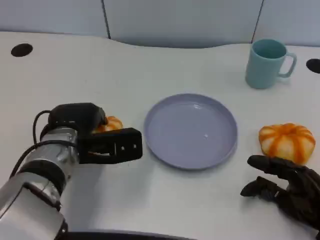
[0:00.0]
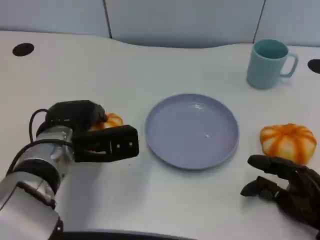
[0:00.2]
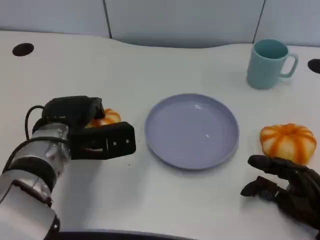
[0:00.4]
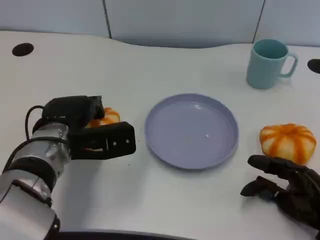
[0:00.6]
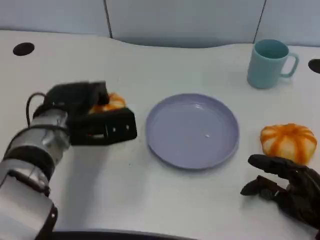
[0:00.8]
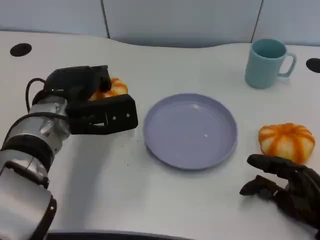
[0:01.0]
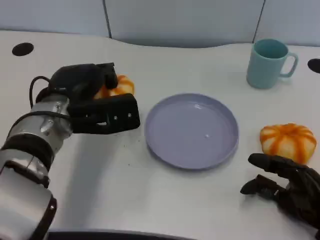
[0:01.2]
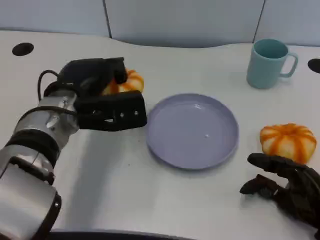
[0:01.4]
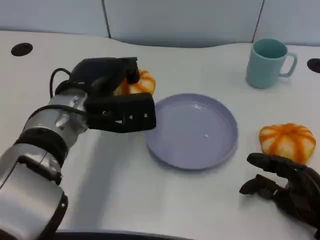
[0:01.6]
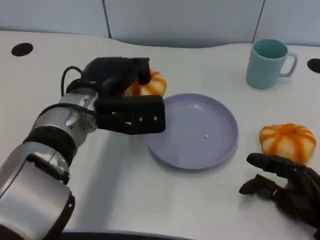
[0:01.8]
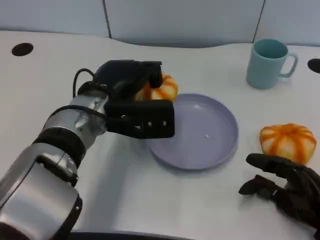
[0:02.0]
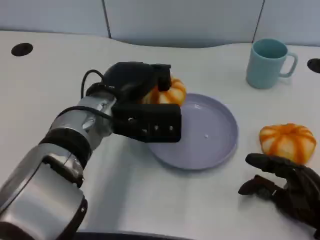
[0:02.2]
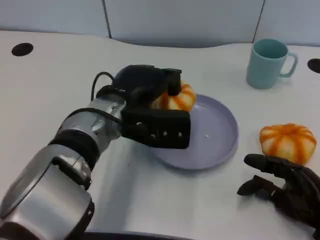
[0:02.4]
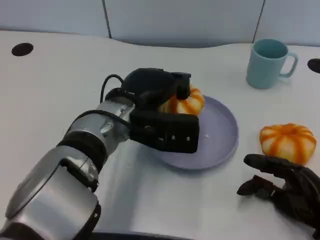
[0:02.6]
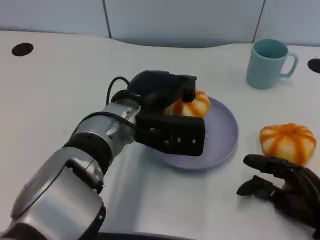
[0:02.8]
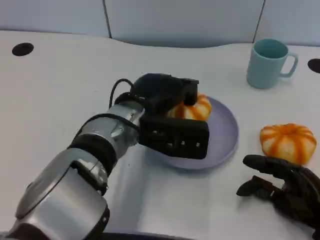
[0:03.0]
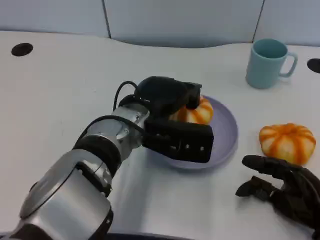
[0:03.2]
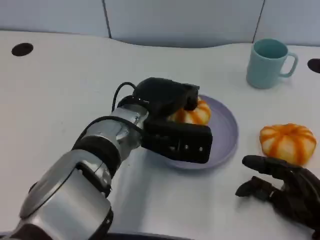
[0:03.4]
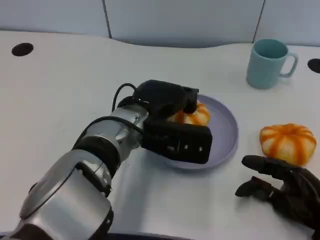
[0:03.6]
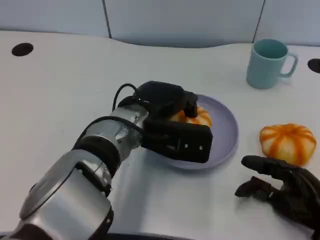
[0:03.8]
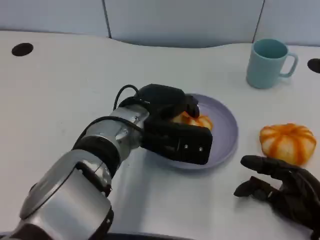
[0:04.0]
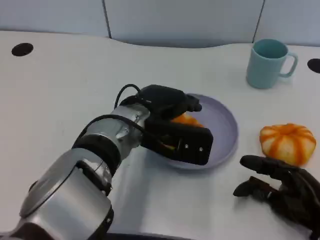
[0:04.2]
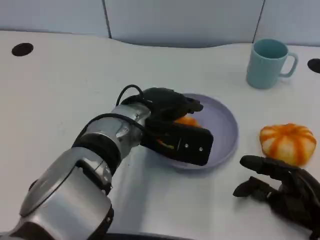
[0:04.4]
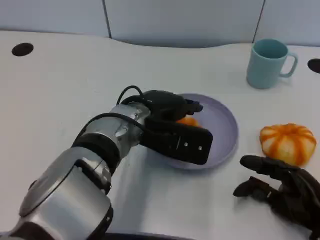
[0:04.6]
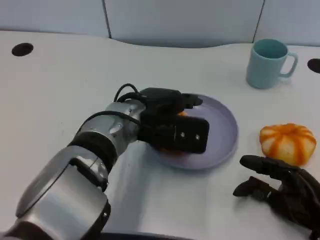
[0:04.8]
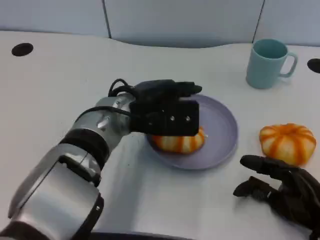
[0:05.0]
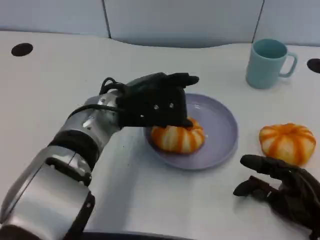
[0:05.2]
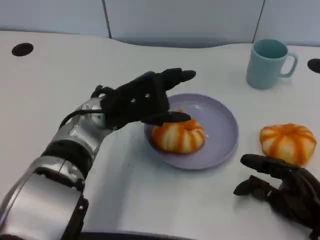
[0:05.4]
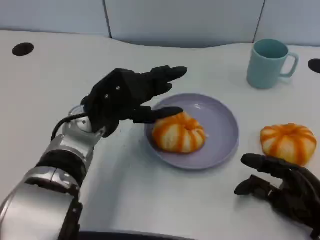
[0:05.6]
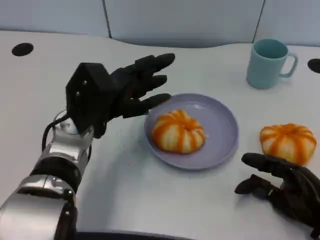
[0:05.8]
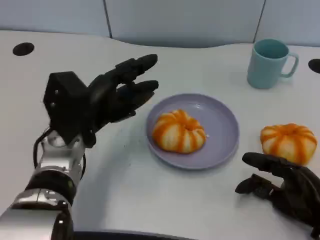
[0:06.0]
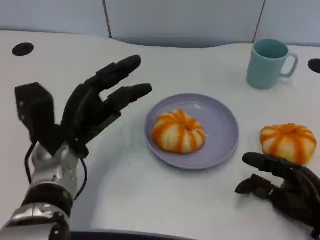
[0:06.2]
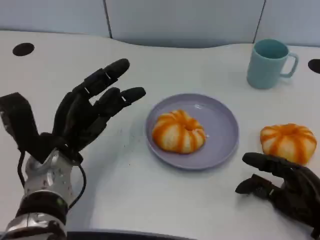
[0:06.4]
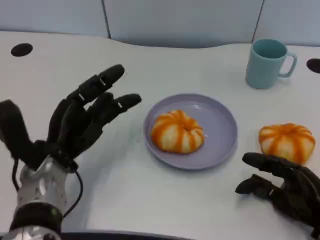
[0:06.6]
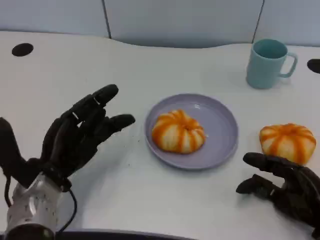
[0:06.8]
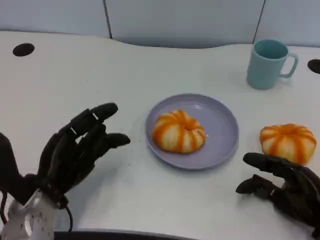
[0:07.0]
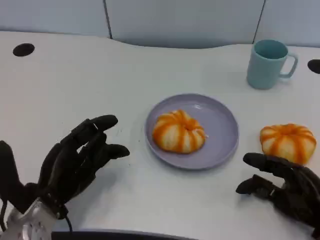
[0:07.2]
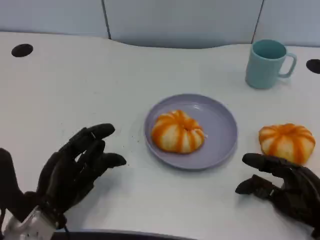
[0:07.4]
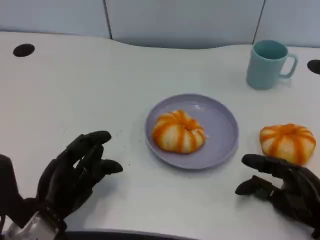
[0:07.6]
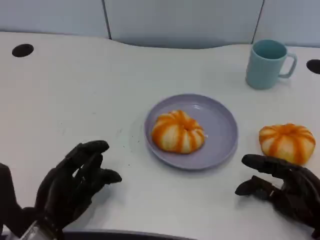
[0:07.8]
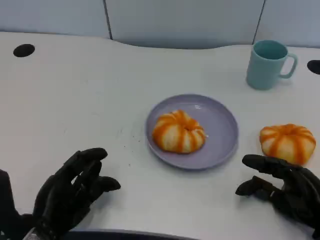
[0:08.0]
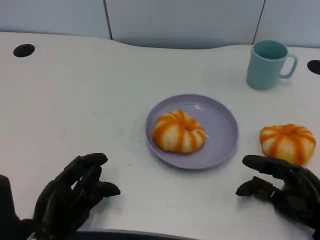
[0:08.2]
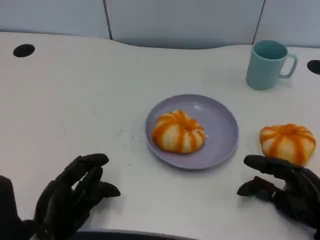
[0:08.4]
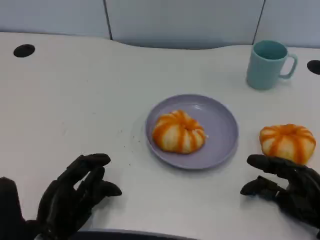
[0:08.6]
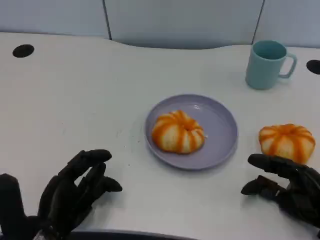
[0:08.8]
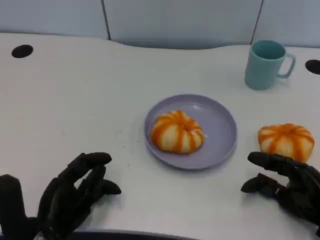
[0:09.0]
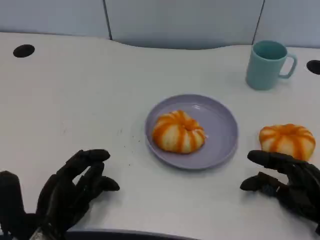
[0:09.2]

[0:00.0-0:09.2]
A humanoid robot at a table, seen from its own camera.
Task of the whole recording: Grasp the bread from the table and place it into the plate.
0:00.0 to 0:01.6: The left hand travels upward by some 5 cm.
0:01.6 to 0:03.0: The left hand moves to the right, approximately 10 cm.
0:03.0 to 0:04.6: The hands stay close to where they were, moving slightly.
0:04.6 to 0:06.2: The left hand moves to the left, about 10 cm.
0:06.2 to 0:07.6: The left hand shifts approximately 10 cm backward.
0:07.6 to 0:09.2: The hands move only a little.

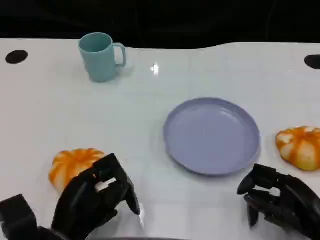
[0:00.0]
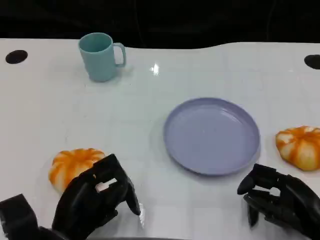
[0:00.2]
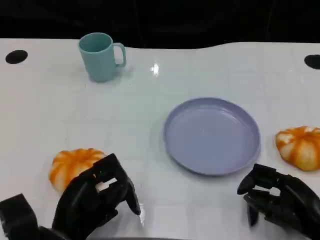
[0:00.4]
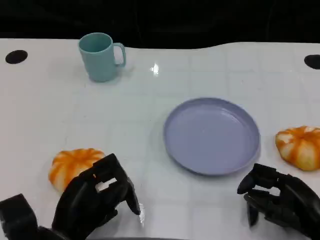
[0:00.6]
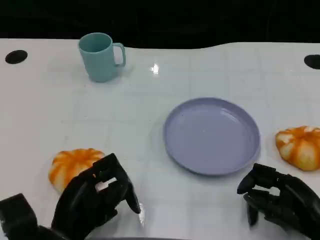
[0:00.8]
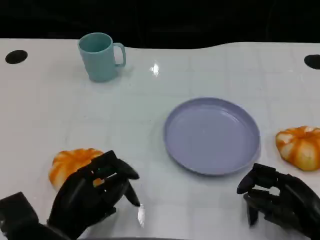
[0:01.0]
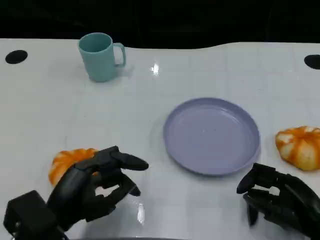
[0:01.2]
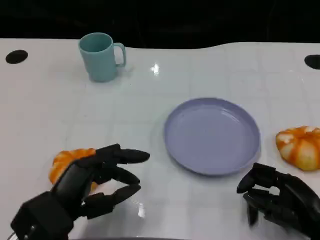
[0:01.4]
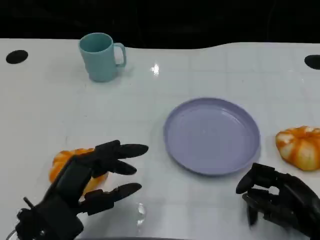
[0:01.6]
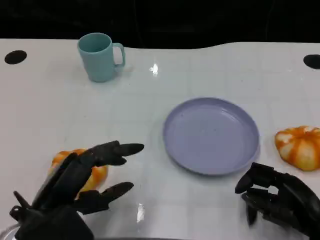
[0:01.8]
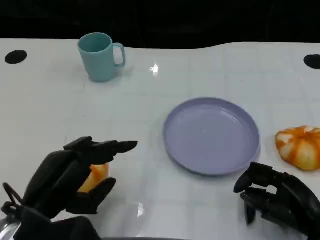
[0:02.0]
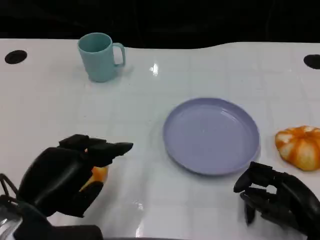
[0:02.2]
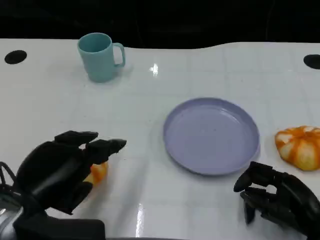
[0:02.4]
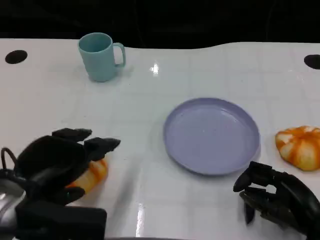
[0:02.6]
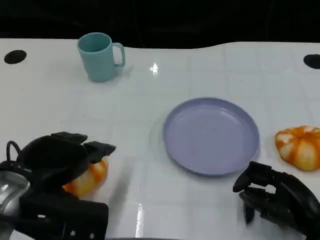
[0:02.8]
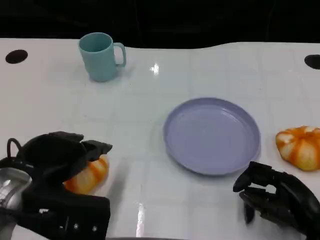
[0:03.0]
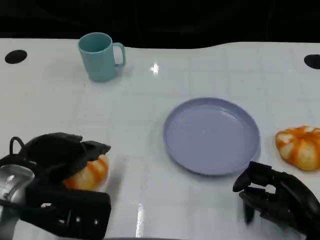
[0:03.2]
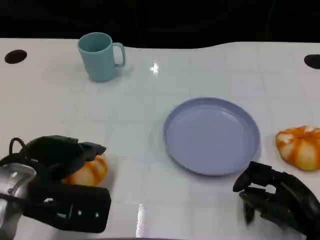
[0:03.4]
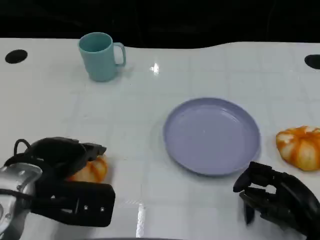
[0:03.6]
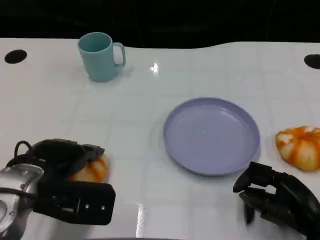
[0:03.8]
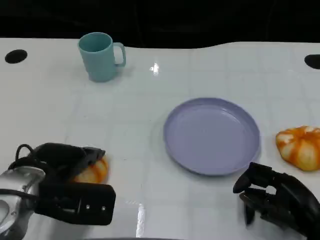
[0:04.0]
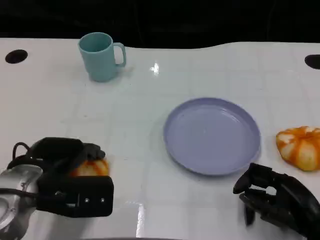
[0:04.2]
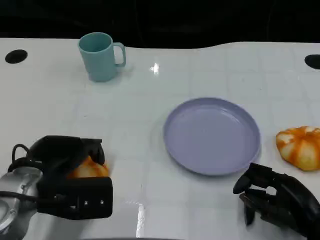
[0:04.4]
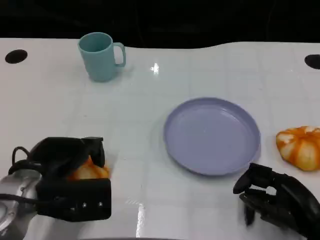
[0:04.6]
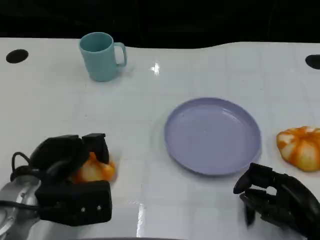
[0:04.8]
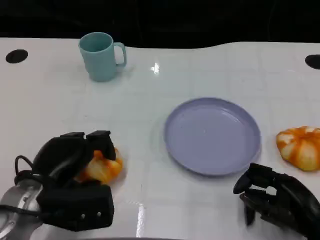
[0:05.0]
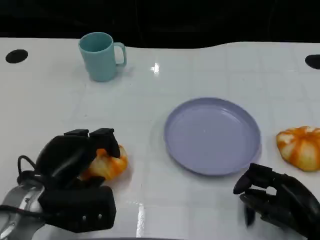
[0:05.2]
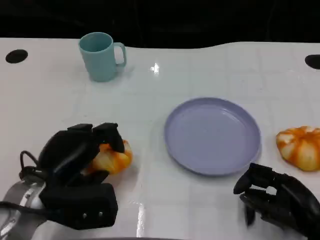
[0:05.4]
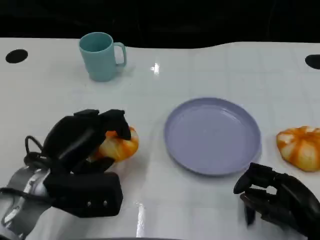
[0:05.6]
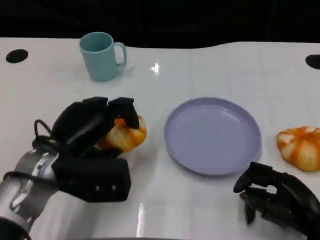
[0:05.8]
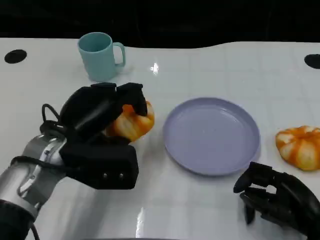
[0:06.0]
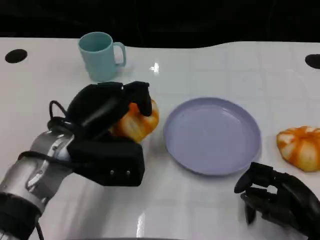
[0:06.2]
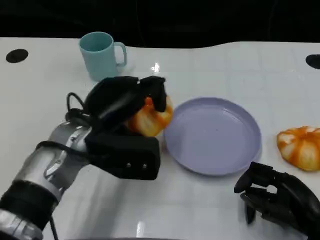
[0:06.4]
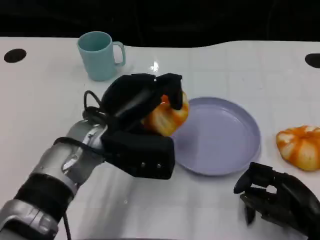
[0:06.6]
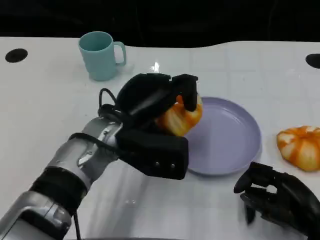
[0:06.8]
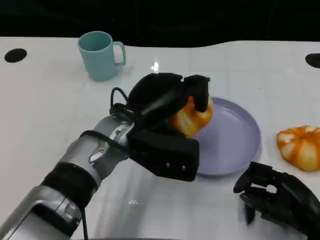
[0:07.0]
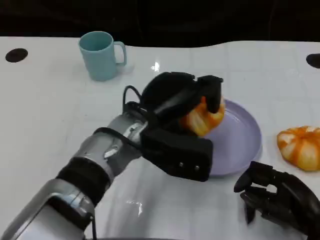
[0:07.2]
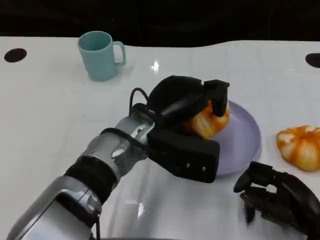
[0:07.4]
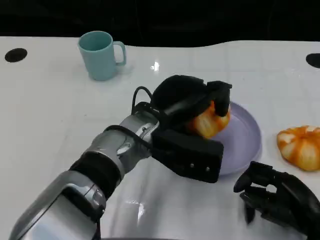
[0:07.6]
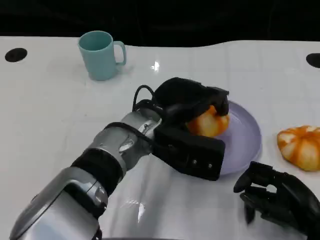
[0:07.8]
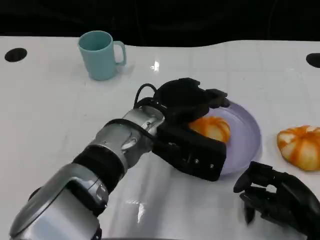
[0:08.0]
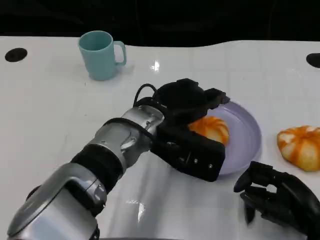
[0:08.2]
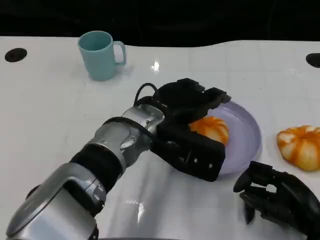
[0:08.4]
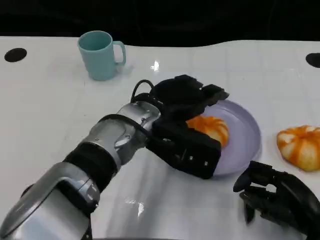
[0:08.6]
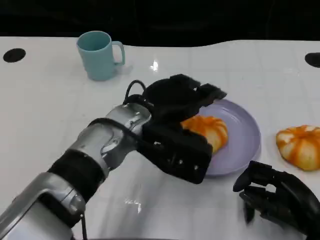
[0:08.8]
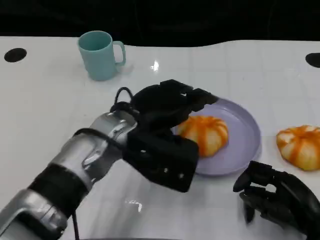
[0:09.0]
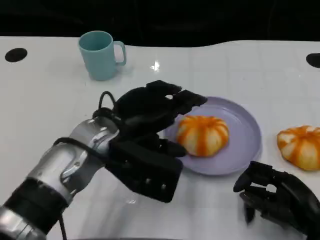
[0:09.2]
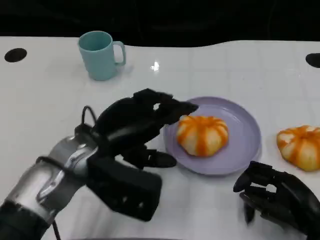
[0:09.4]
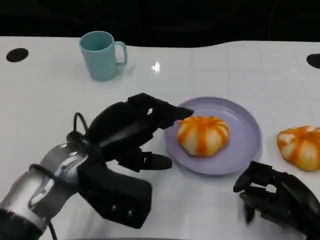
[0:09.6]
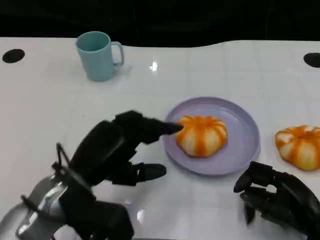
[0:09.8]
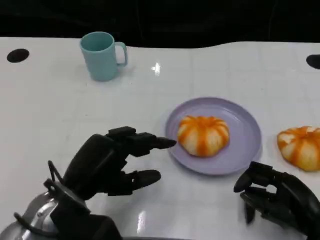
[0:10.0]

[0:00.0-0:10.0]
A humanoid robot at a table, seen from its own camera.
Task of the whole recording: Grasp the bread from the table and place it into the plate.
0:00.0 to 0:01.4: The left hand is displaced upward by approximately 5 cm.
0:01.4 to 0:02.8: The left hand shifts some 5 cm upward.
0:02.8 to 0:04.2: The left hand shifts roughly 5 cm downward.
0:05.8 to 0:07.2: The left hand goes some 10 cm to the right.
0:08.6 to 0:10.0: The left hand moves to the left, backward and downward, approximately 15 cm.

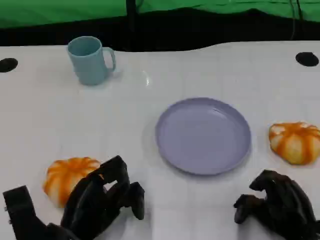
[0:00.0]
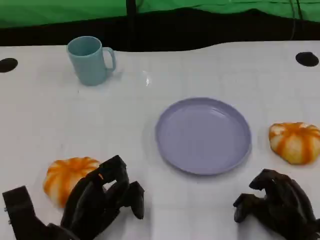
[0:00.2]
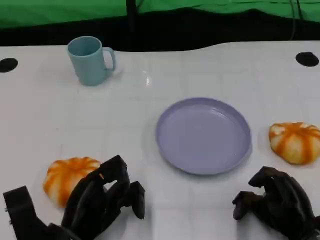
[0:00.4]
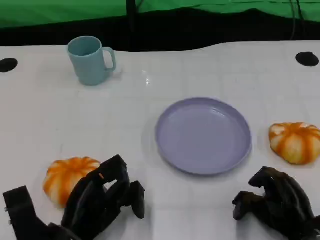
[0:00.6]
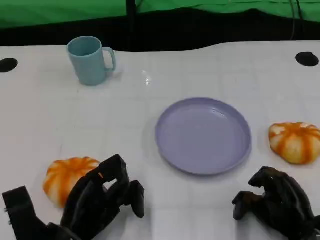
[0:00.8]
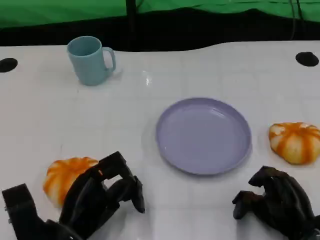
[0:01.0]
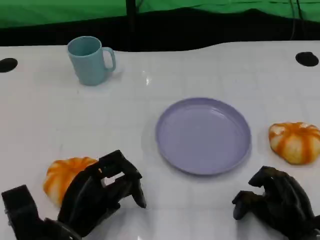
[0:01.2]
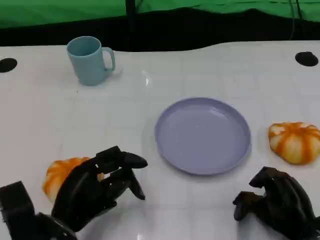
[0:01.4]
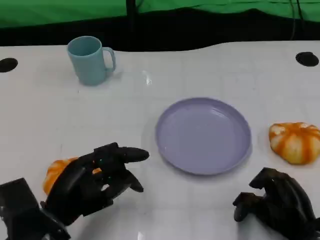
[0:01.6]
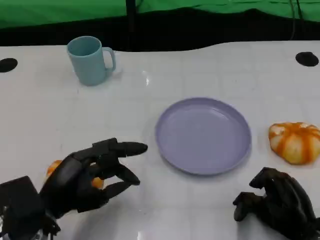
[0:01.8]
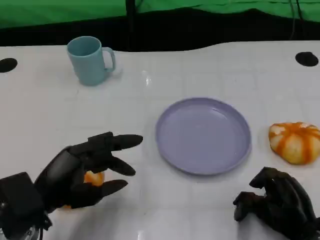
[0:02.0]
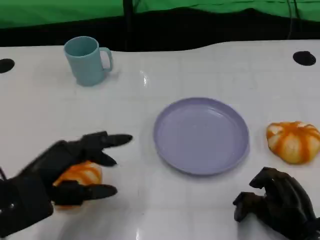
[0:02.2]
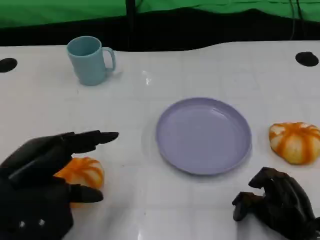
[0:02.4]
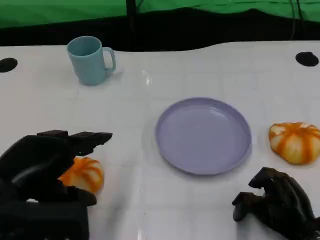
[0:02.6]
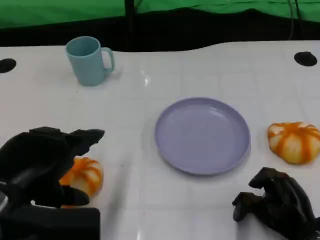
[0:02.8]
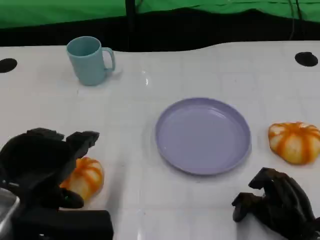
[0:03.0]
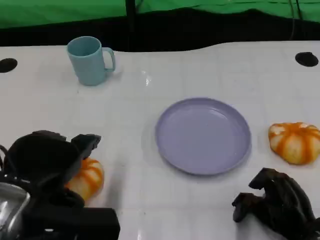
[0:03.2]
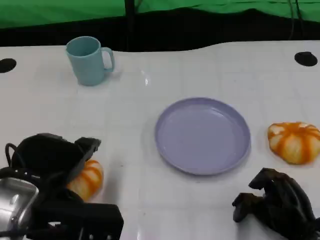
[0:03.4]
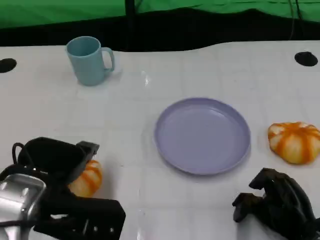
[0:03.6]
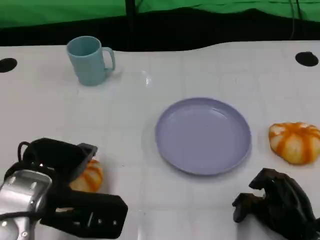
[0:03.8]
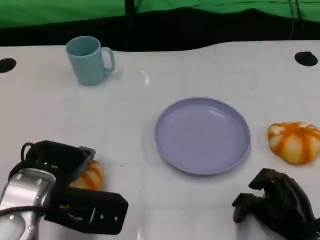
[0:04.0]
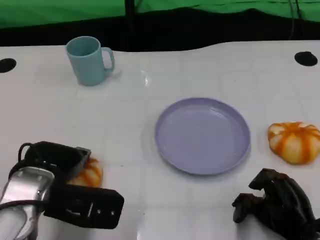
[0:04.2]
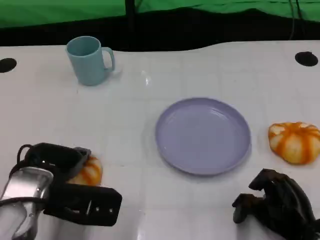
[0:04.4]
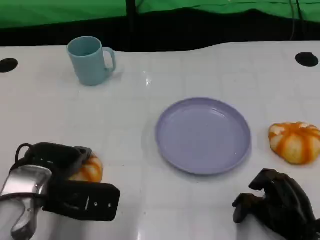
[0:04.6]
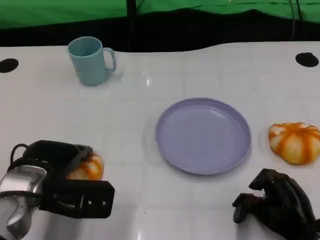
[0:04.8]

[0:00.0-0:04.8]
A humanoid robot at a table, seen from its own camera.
Task of the whole recording: Grasp the bread from the table and place it into the plate.
0:01.6 to 0:03.2: The left hand travels upward by approximately 10 cm.
0:03.2 to 0:04.8: The left hand is displaced downward and forward by approximately 10 cm.
